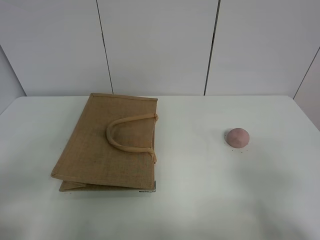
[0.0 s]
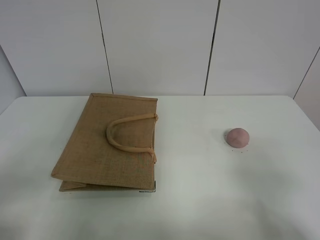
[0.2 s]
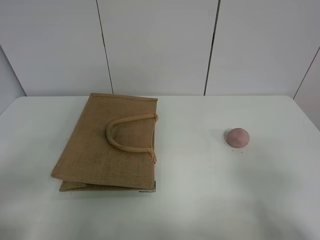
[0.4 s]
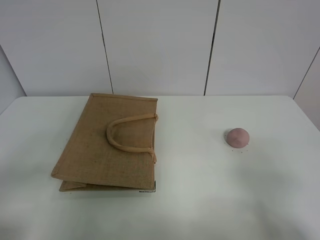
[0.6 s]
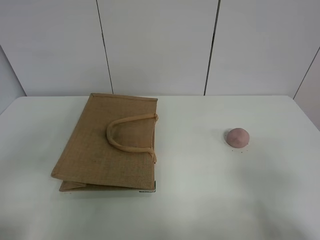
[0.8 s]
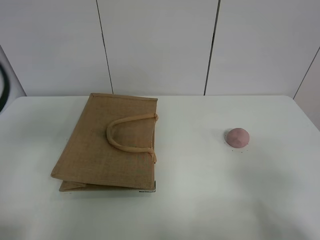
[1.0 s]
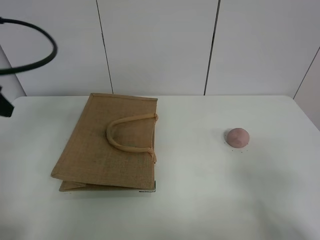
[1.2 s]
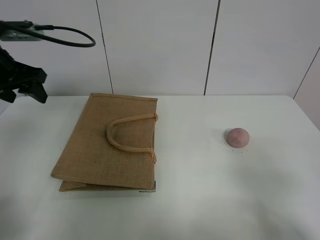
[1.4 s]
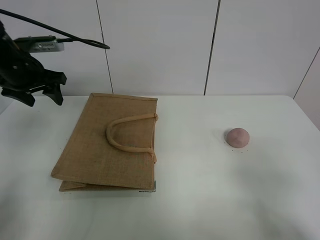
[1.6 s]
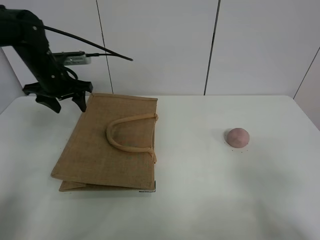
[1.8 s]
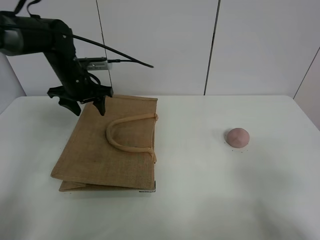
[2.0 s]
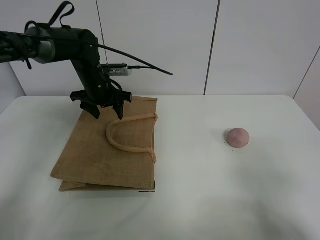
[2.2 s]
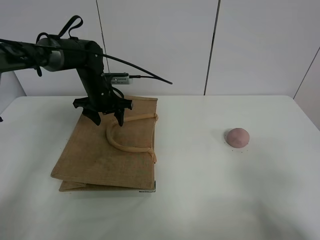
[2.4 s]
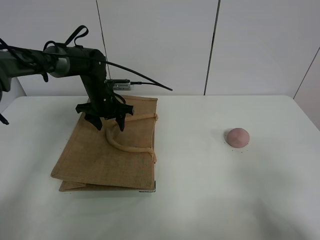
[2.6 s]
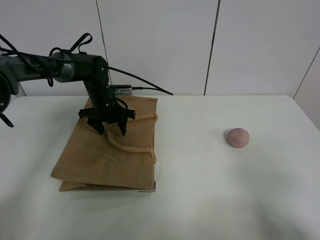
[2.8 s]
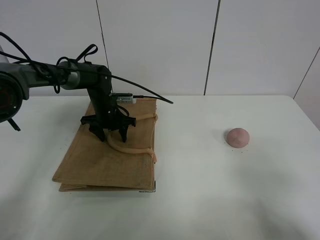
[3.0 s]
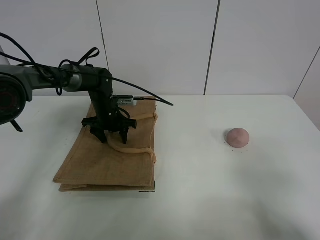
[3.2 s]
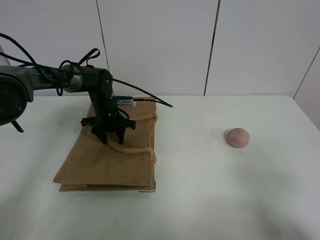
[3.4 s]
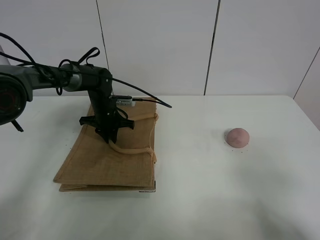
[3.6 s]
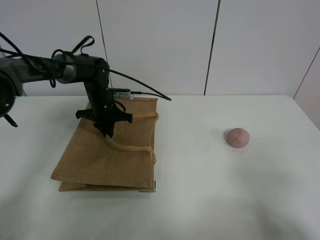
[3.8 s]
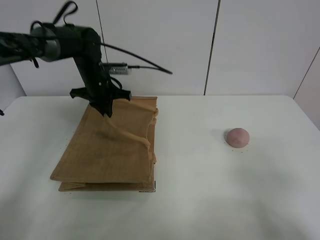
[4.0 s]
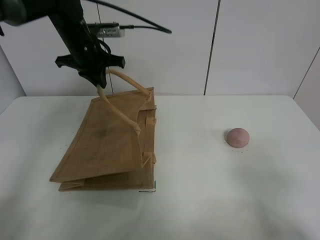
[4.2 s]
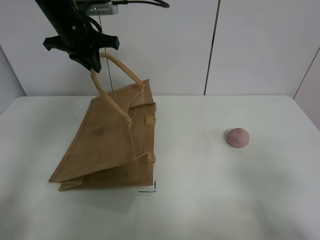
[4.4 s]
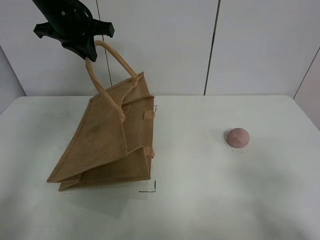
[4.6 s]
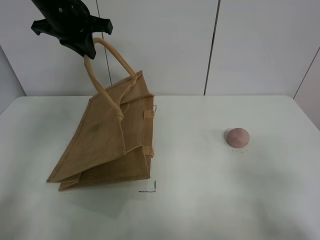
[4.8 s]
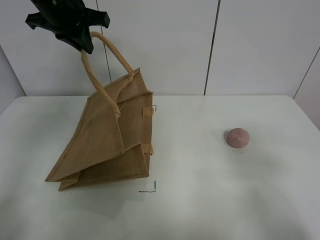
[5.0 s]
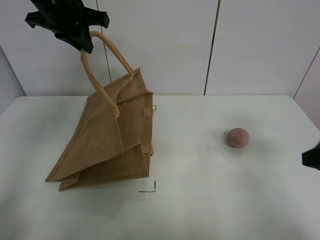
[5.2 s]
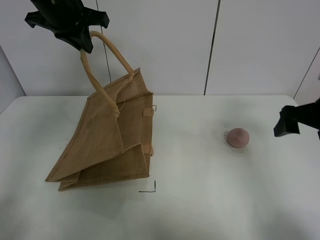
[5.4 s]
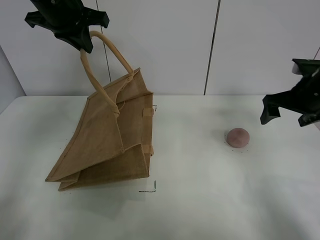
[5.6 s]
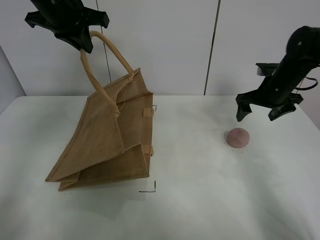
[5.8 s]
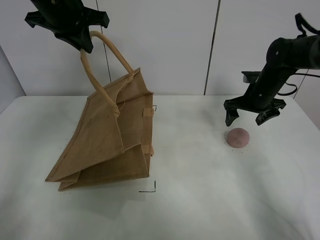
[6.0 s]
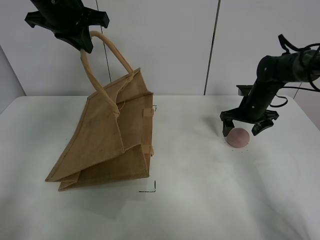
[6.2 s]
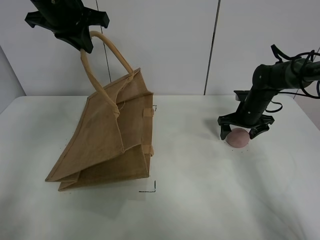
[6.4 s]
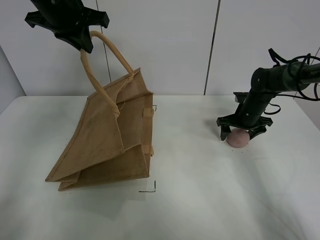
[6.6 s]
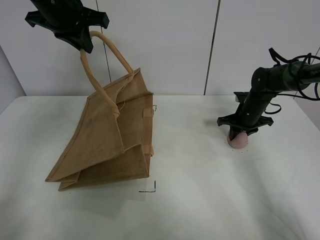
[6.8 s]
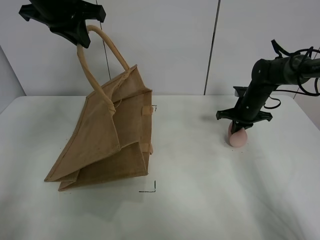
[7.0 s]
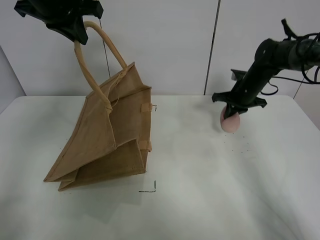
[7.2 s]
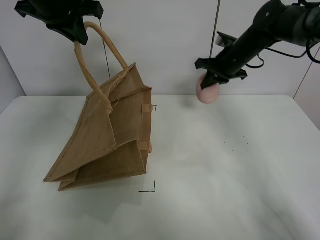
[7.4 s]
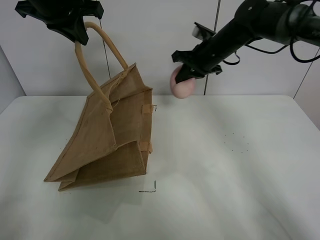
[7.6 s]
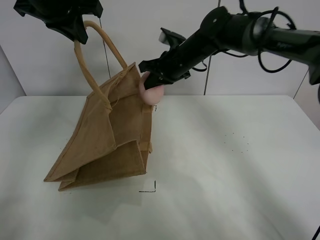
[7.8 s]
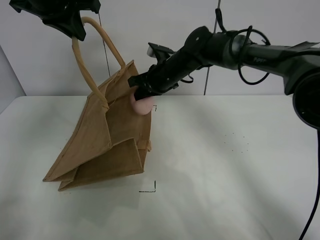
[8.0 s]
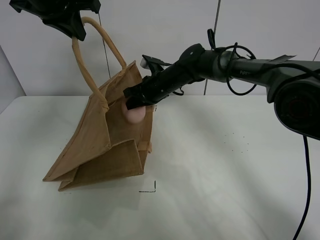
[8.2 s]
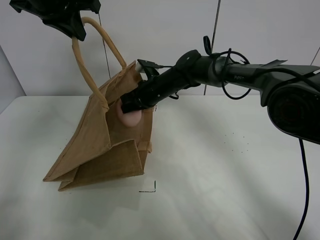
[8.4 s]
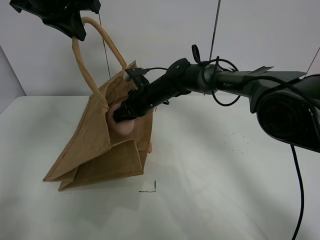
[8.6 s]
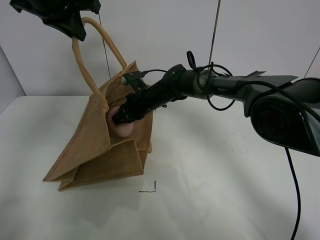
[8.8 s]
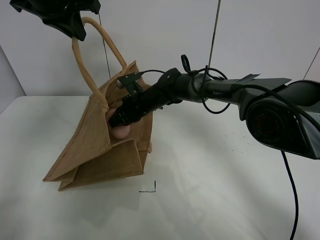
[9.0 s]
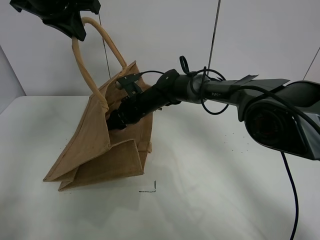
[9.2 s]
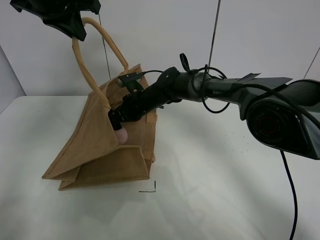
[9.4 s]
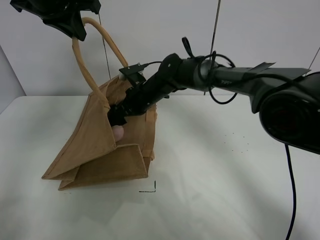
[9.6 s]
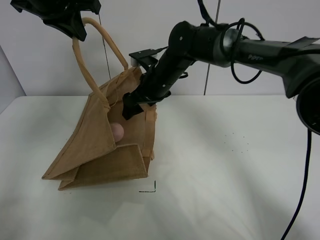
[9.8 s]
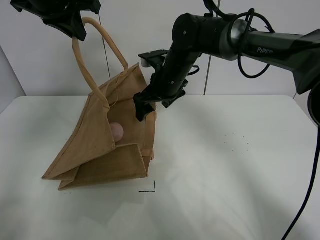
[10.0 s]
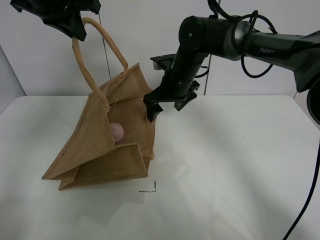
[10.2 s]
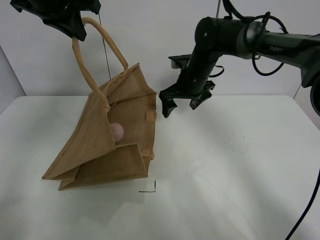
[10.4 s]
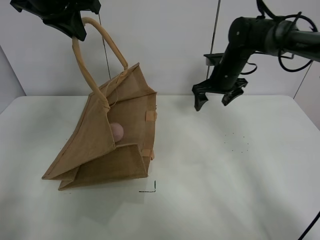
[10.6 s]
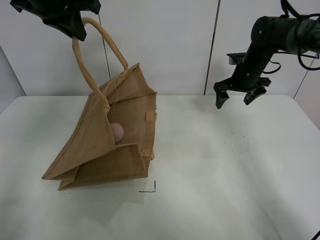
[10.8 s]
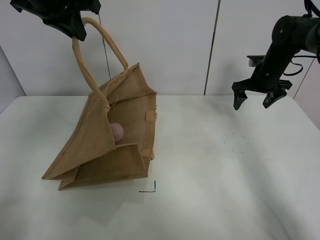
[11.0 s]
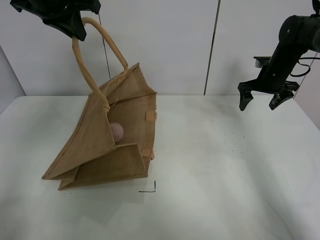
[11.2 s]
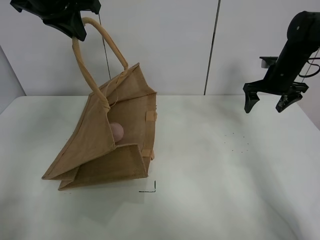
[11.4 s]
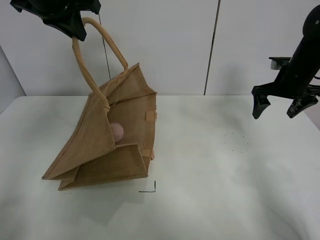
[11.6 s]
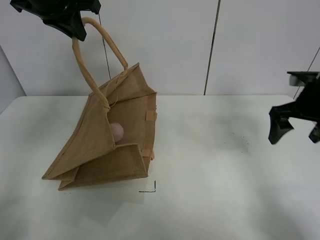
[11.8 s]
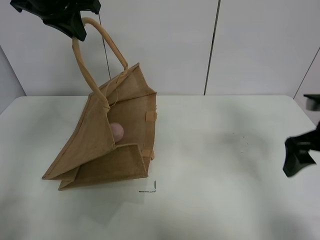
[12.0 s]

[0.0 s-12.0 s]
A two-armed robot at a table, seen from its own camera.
Task of the whole recording: open the brown linen bag and put the peach in the bag.
Step, 0.0 to 5.0 s: Lift the handbag with left gripper.
Step, 5.2 to 7.0 s: Grasp the peach with right gripper.
Step, 7.2 to 10.2 s: Place the peach in the handbag with right gripper.
0.0 to 1.6 s: The left gripper heads forward, covering about 35 cm.
1.6 to 3.0 s: The left gripper goes approximately 25 cm downward, to the right and forward.
3.0 to 4.4 s: The left gripper travels upward by some 25 cm, and closes its fingers.
4.4 to 6.0 s: The left gripper changes place by some 5 cm, while the right gripper travels forward by approximately 40 cm.
6.0 to 7.6 s: The right gripper is displaced to the left and upward by about 15 cm, and closes its fingers.
7.6 to 9.0 s: The right gripper travels to the left and downward by roughly 20 cm.
9.0 to 10.4 s: The right gripper goes roughly 15 cm to the right and upward, and opens its fingers.
10.4 to 12.0 s: The right gripper travels backward and to the right by some 30 cm.

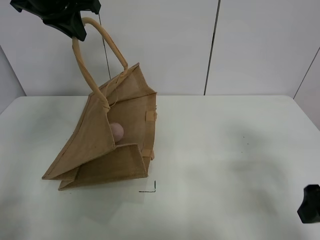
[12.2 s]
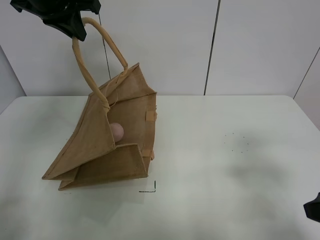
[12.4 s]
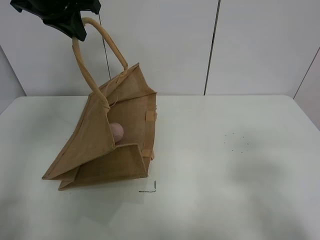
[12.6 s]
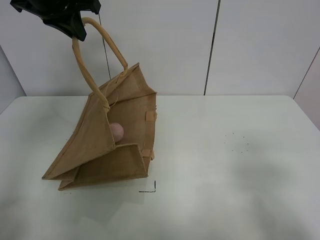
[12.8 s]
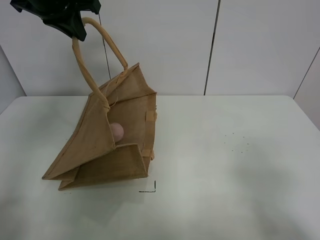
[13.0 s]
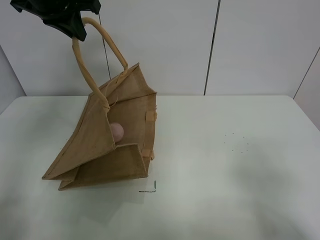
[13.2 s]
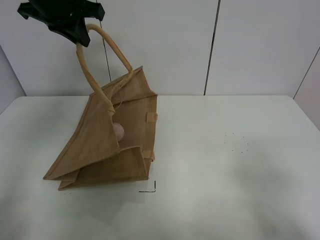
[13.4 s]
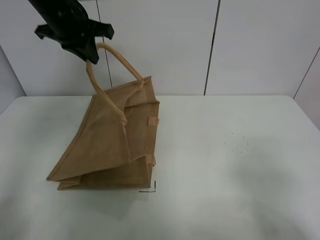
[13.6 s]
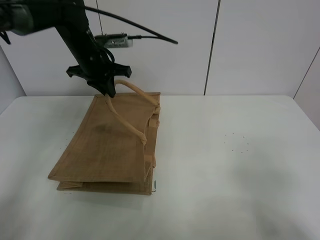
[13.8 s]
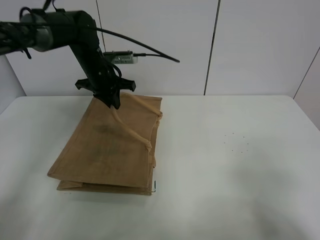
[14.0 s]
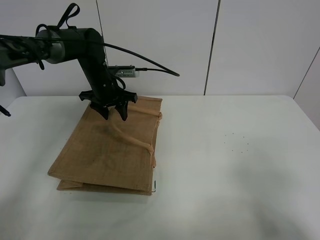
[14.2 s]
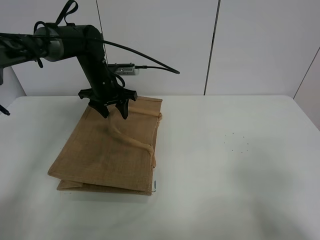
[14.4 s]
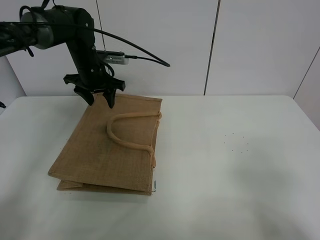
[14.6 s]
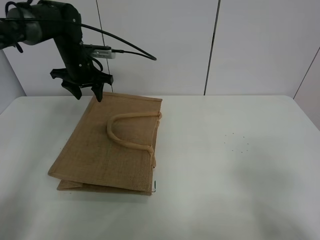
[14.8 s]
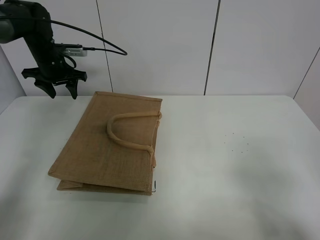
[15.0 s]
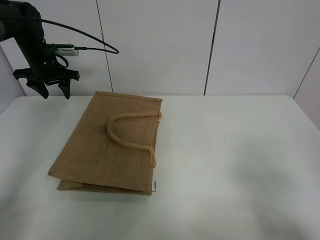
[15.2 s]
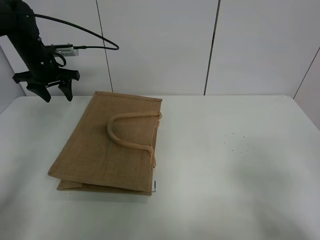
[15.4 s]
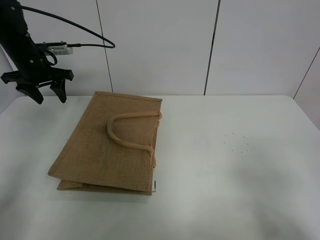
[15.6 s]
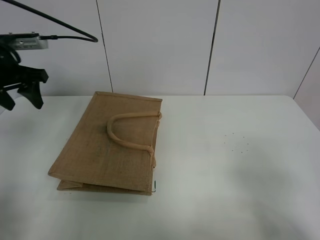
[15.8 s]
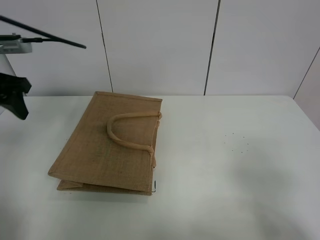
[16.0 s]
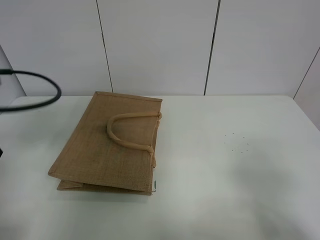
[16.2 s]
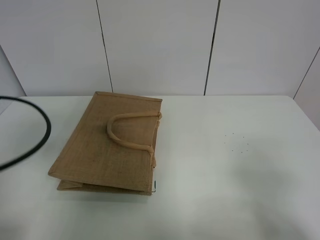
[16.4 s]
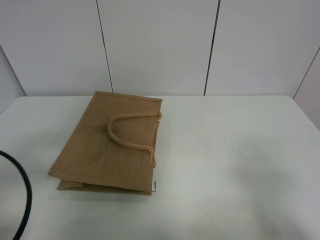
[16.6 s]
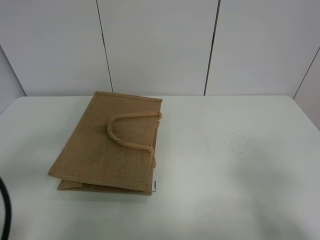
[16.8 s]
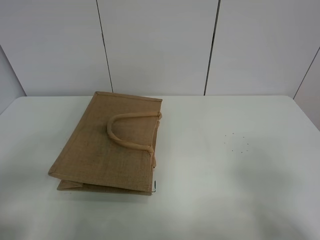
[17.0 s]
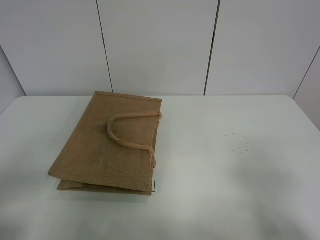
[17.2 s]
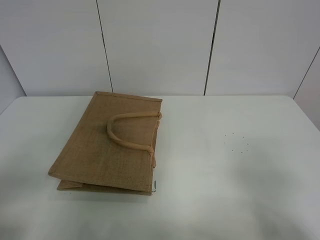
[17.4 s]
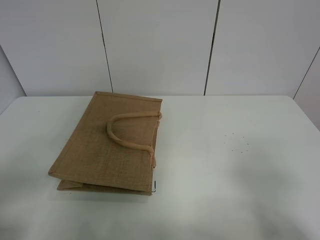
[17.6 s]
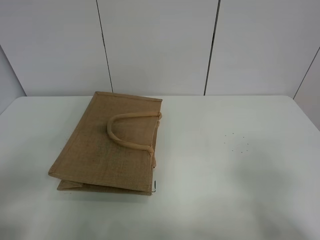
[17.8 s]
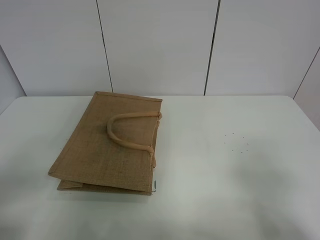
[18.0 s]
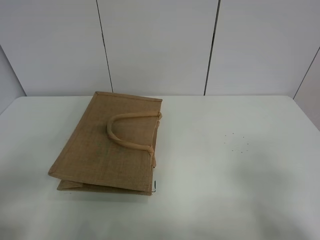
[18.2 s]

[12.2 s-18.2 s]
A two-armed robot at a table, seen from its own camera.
Task of the whole recording: open the brown linen bag and put the peach in the bag.
Step, 12.2 to 14.8 s: Put down the handbag with left grippe.
12.2 to 13.8 s: The right gripper shifts approximately 10 cm backward; the left gripper shifts about 15 cm downward and forward.
13.8 to 15.2 s: The left gripper shifts some 15 cm to the left, and opens its fingers.
15.2 to 16.6 s: The left gripper heads backward, covering some 40 cm.
16.6 to 18.2 s: The left gripper is displaced backward by some 5 cm.

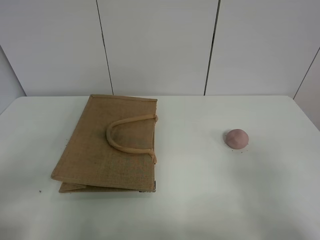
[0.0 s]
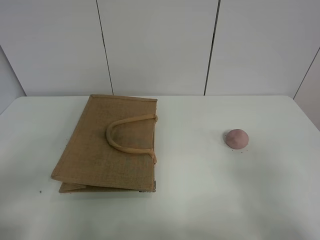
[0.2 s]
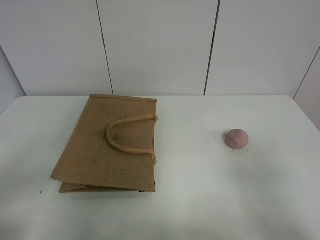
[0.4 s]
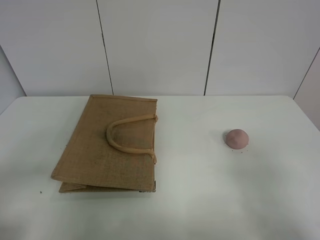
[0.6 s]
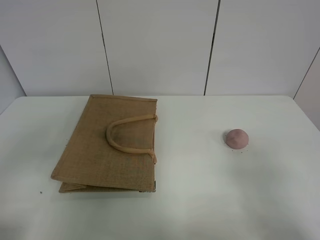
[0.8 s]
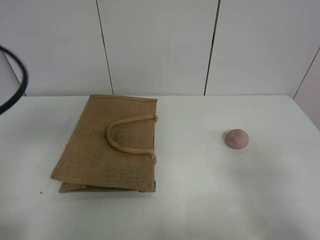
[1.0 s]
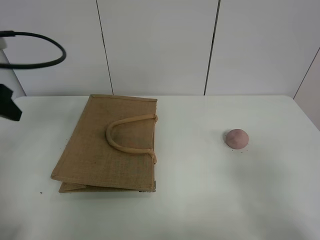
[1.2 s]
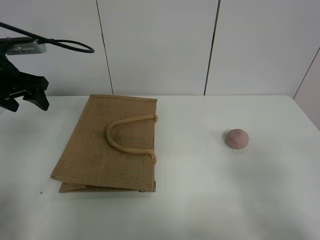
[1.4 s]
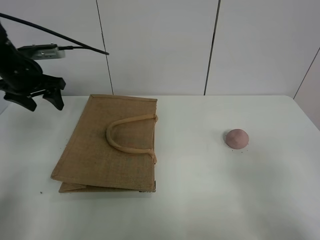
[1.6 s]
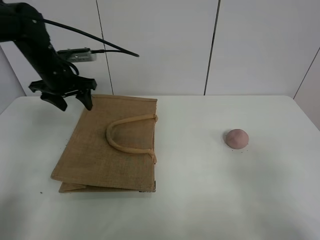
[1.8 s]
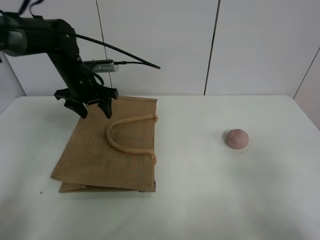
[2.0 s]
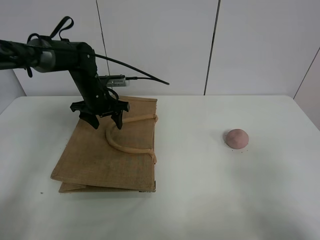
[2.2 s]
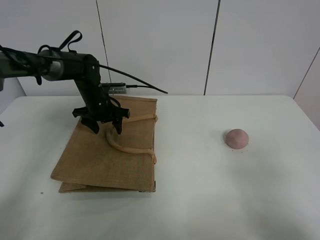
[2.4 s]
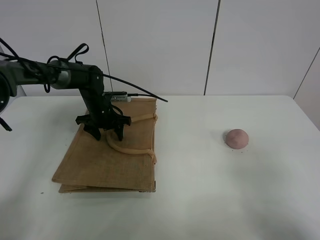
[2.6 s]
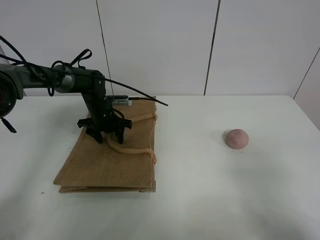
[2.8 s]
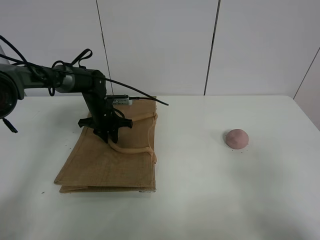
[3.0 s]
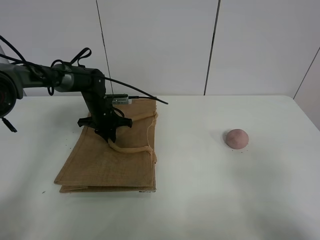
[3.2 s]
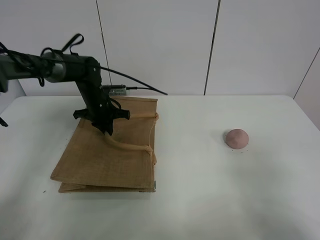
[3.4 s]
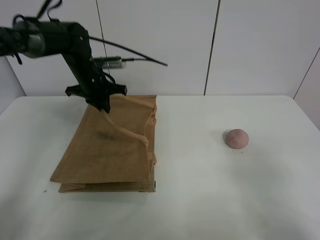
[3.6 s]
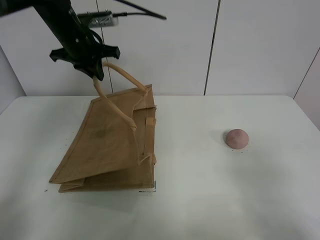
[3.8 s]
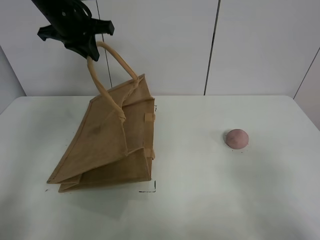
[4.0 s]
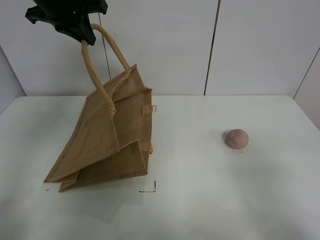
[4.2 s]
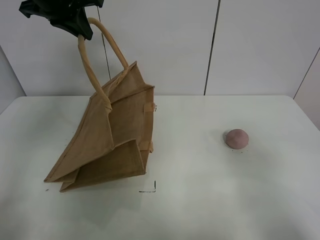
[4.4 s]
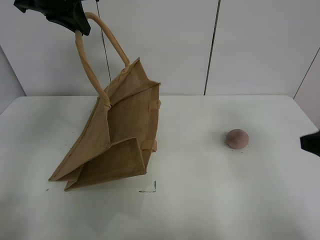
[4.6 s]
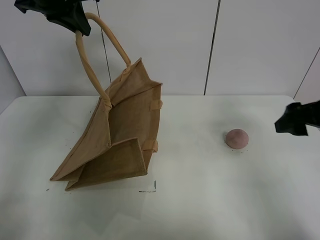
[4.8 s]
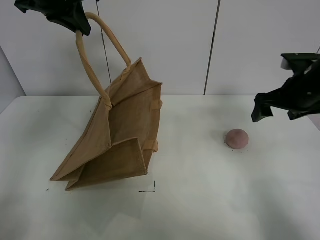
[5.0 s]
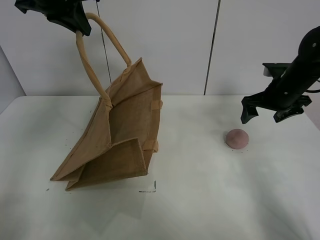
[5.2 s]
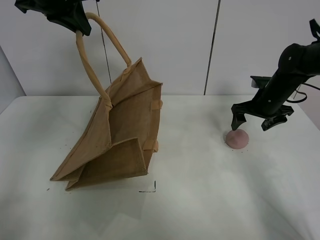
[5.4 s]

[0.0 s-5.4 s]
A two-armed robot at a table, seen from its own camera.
Task of the whole recording: open the brown linen bag and put the peach in the bag.
Step, 0.0 to 4.2 s: Lift the handbag with left gripper.
0.0 to 1.4 s: The left gripper is displaced forward by approximately 35 cm.
1.4 to 2.8 s: The left gripper is displaced downward, to the right and forward by roughly 25 cm.
2.8 to 4.0 s: The left gripper is displaced upward by roughly 25 cm, and closes.
4.0 to 5.4 s: The right gripper shifts roughly 40 cm forward. The left gripper heads upward, covering approximately 5 cm.
